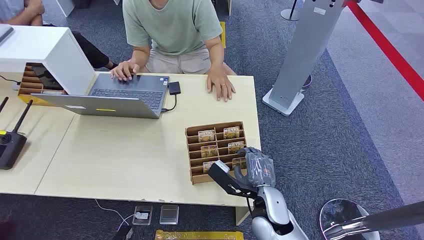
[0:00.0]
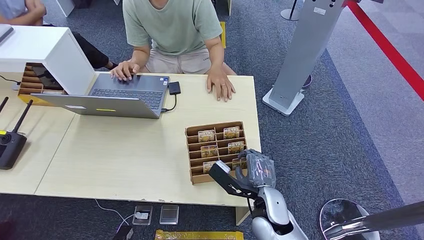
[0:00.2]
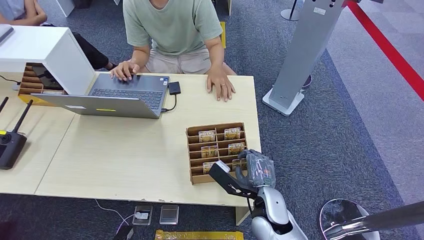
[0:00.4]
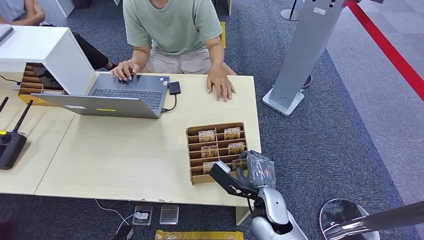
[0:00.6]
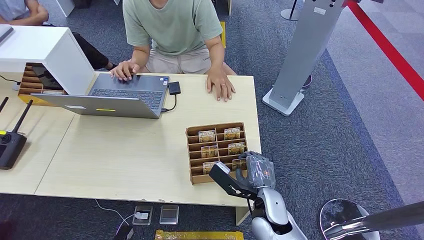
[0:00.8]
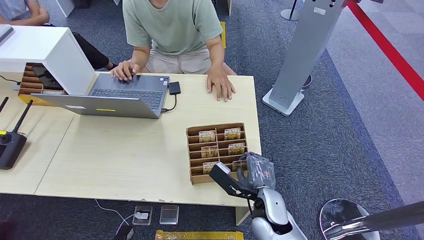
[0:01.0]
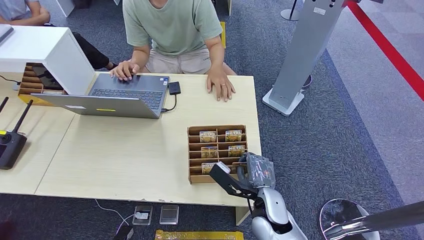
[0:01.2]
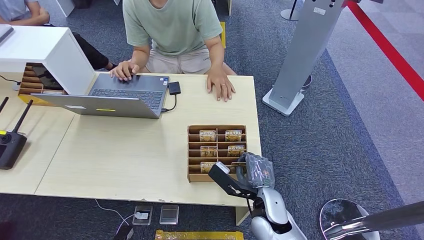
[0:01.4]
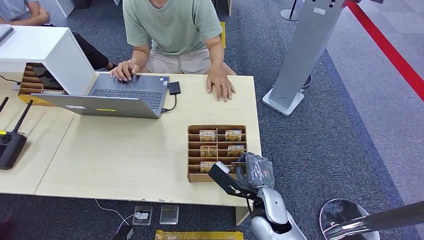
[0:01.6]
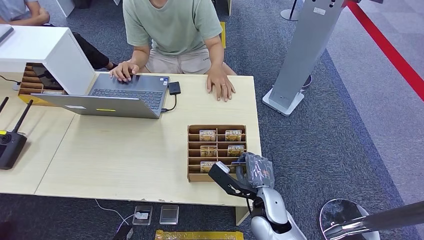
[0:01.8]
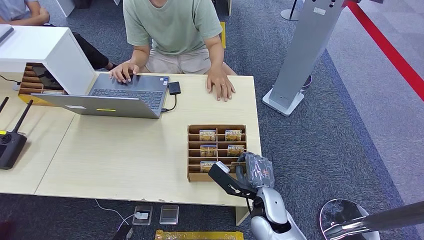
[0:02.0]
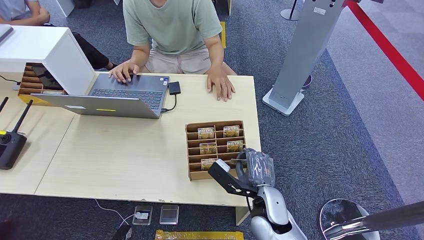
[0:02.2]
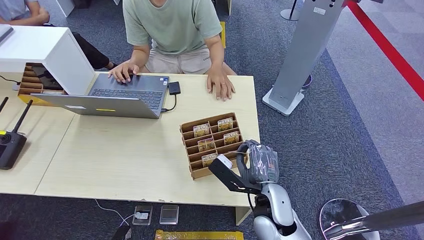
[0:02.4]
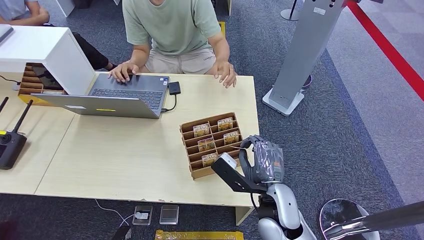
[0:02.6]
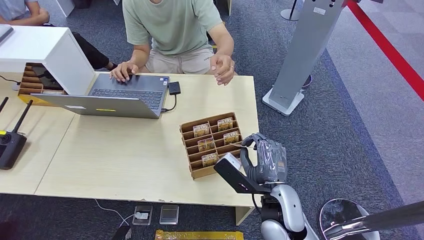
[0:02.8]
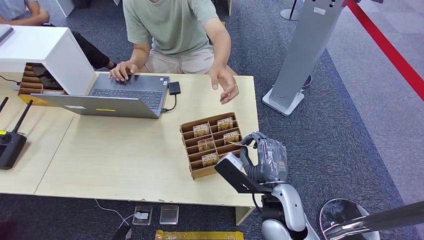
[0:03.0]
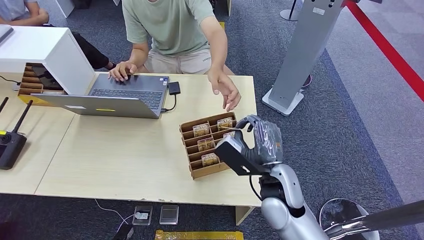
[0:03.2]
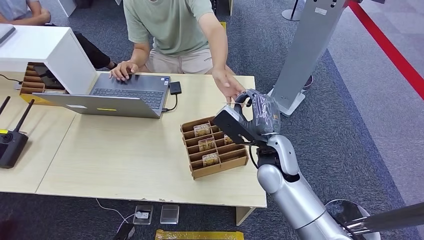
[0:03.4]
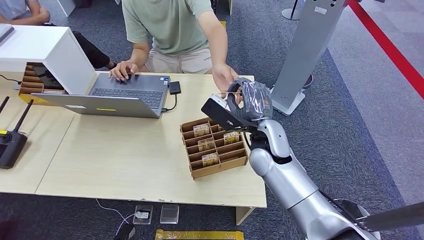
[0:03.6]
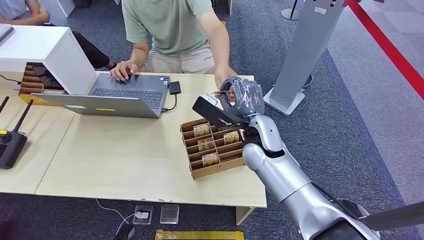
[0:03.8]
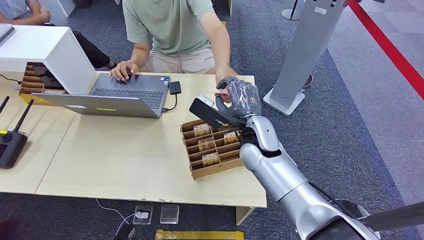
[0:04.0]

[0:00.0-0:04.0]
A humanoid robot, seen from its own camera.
Step, 0:00.0 to 0:02.2: Pick up the key card from the card box.
Step, 0:03.0 to 0:04.0: Hand the key card to the target.
0:01.4 to 0:02.6: The right hand heads upward, covering roughly 5 cm.
0:02.6 to 0:04.0: The right hand moves forward and upward, roughly 15 cm.
